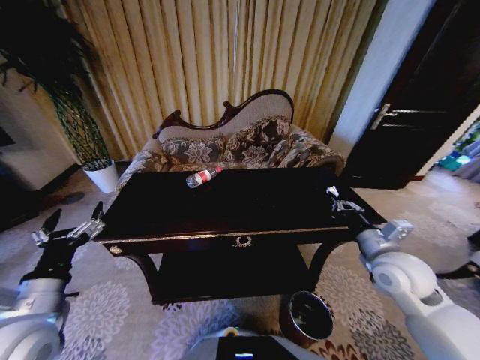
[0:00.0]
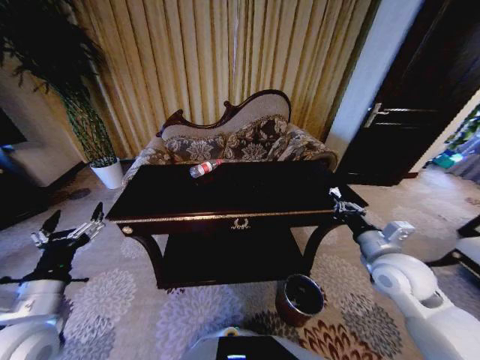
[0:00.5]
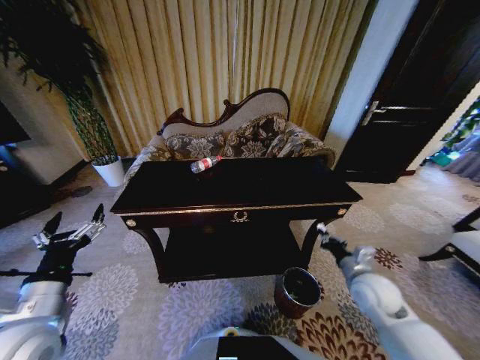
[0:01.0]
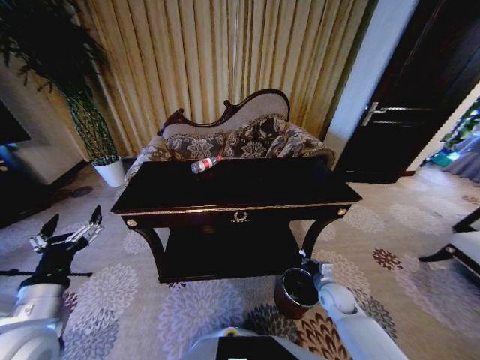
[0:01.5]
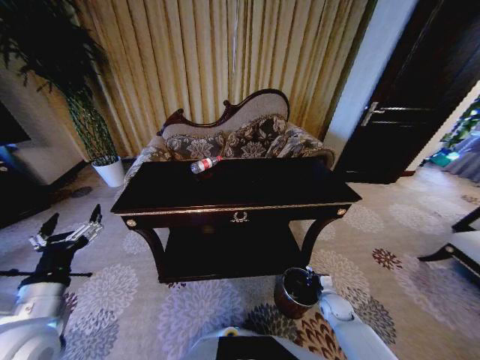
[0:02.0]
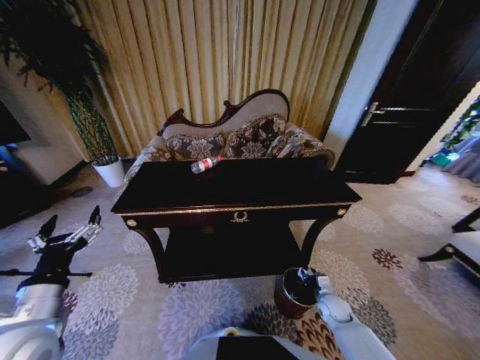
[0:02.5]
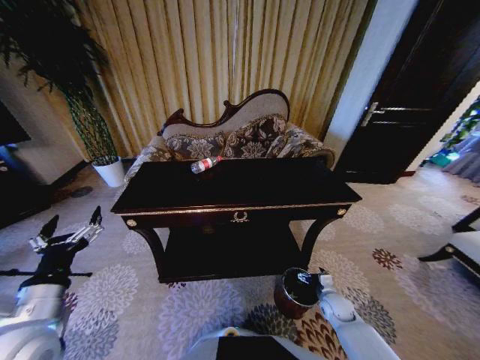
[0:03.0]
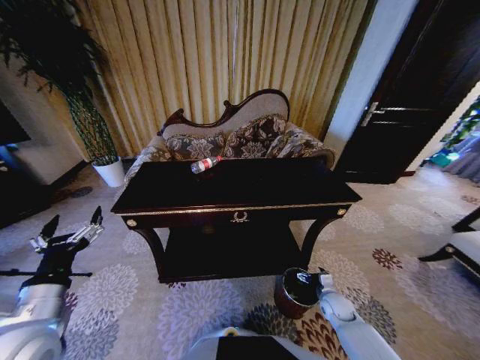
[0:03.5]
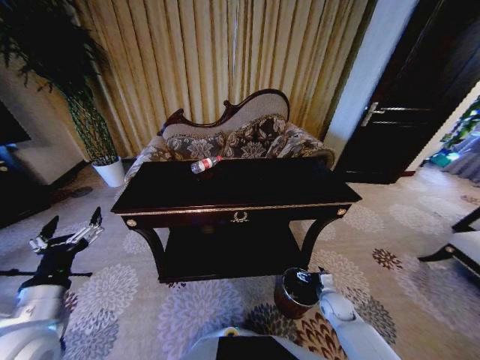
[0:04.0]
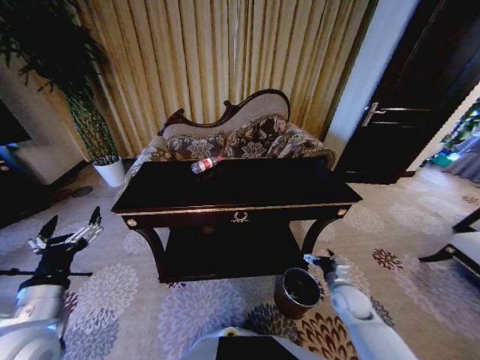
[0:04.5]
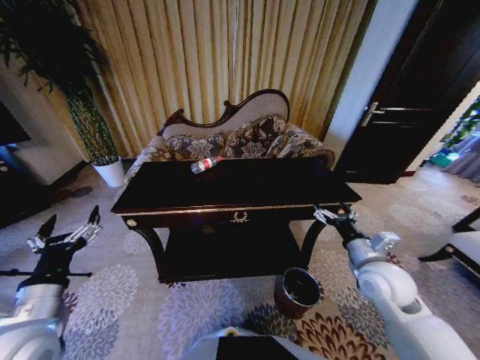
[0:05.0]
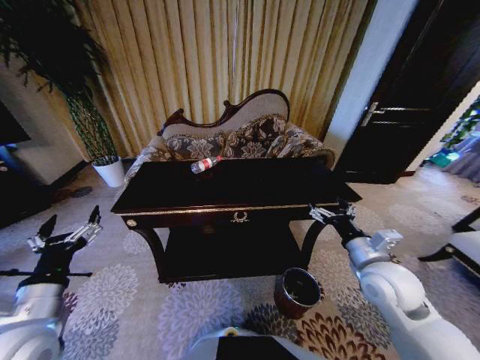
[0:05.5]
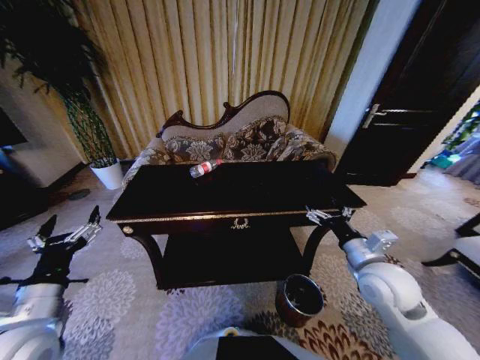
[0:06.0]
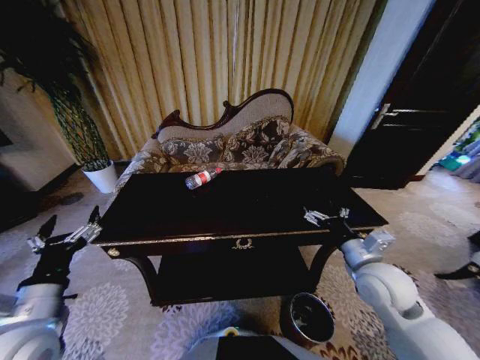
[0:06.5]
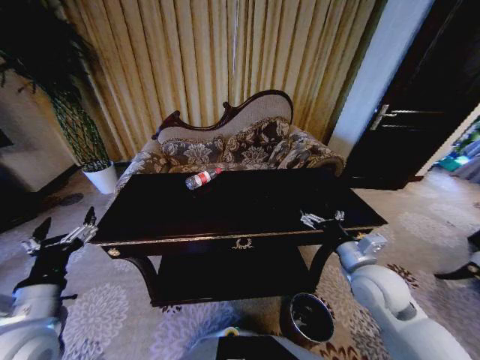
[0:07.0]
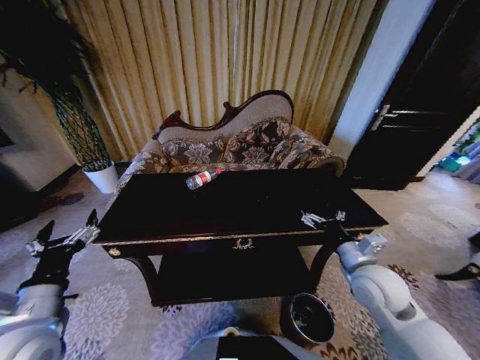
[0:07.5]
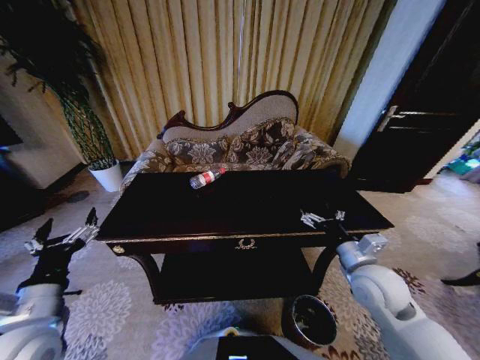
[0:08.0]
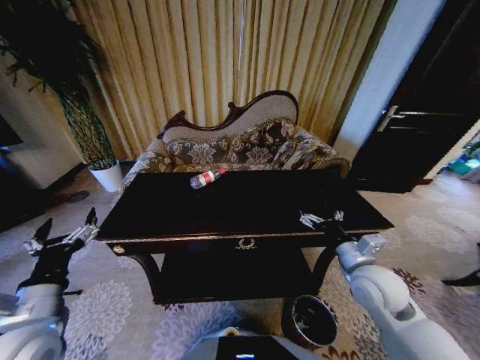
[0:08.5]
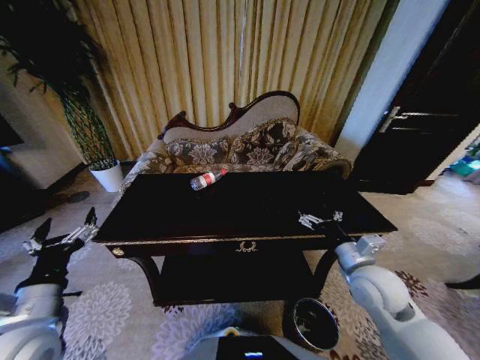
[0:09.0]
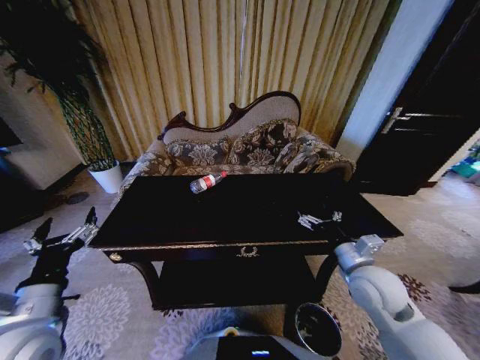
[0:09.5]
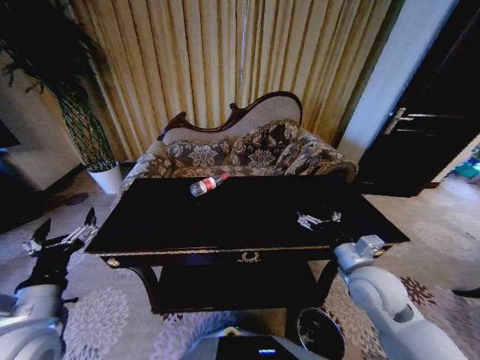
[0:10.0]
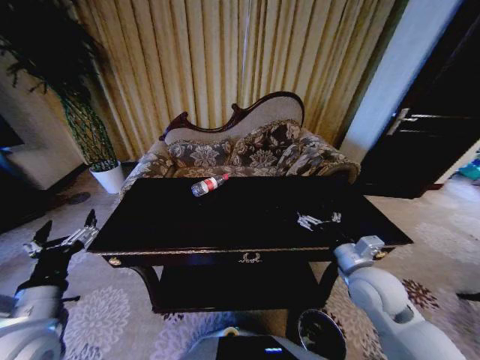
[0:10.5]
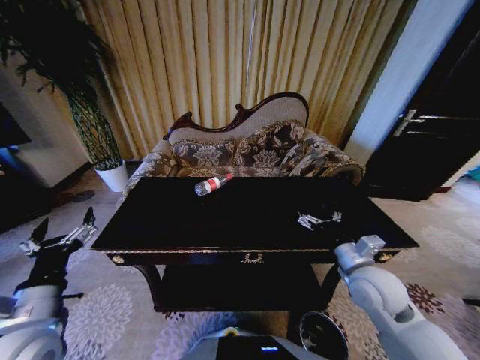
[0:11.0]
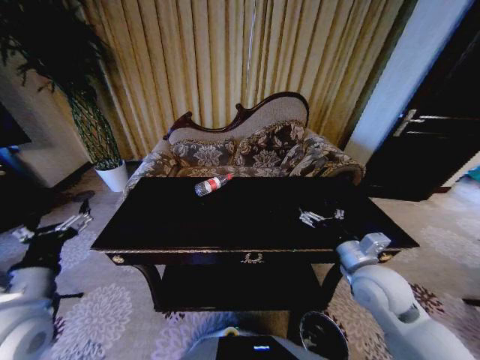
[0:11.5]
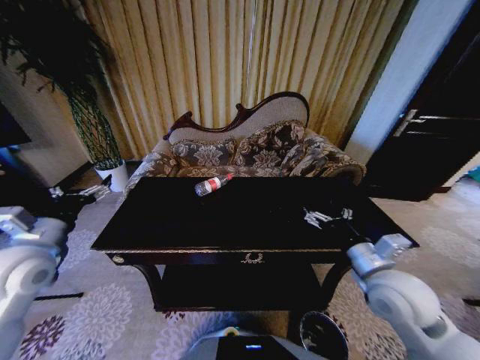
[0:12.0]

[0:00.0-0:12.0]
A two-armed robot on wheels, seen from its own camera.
Task of the whole recording: Move to the front of the table and place the trash on the table into the trash bin.
0:00.0 to 0:02.0: The right gripper is displaced downward by about 30 cm.
0:04.0 to 0:06.0: The right gripper heads upward, covering about 30 cm.
0:10.0 to 0:12.0: The right gripper moves roughly 5 cm. Meanwhile the left gripper heads forward, to the left and upward, covering some 15 cm.

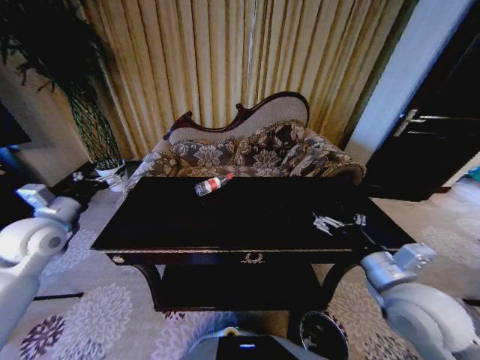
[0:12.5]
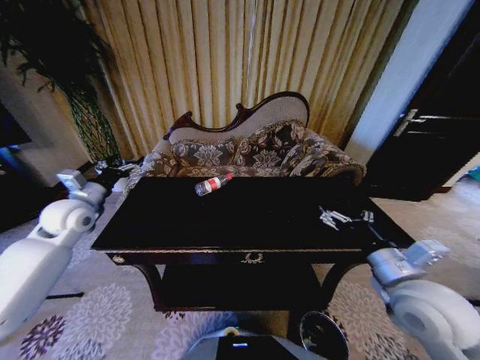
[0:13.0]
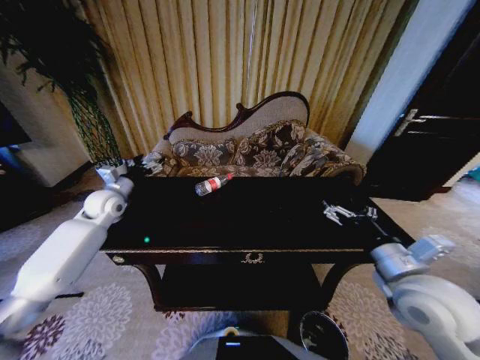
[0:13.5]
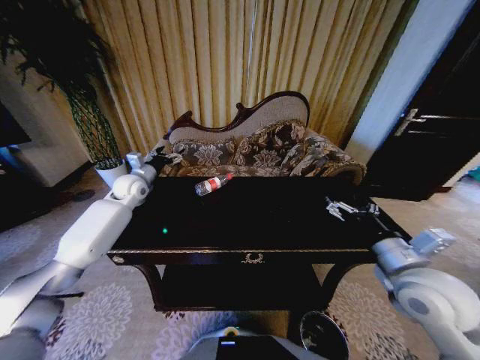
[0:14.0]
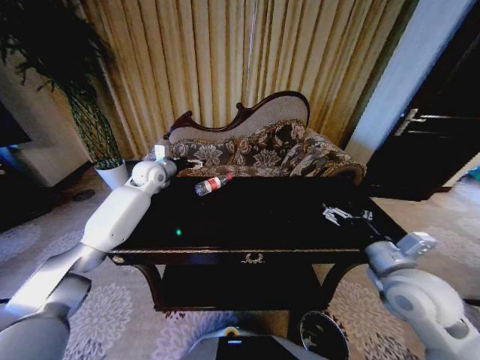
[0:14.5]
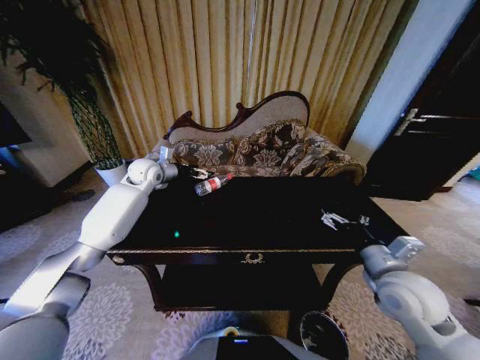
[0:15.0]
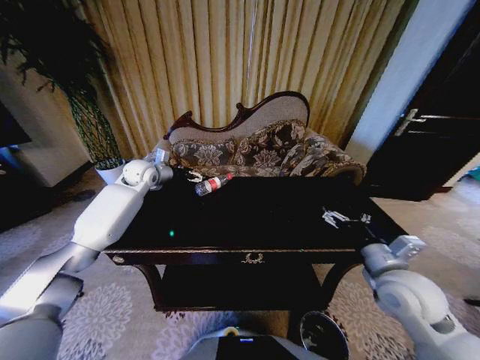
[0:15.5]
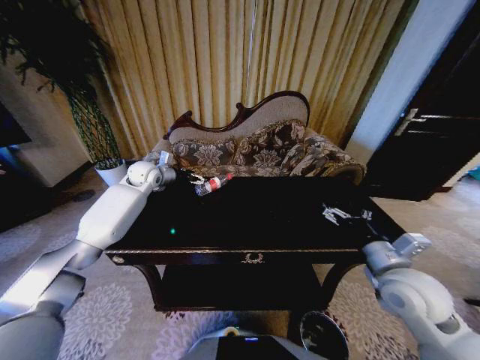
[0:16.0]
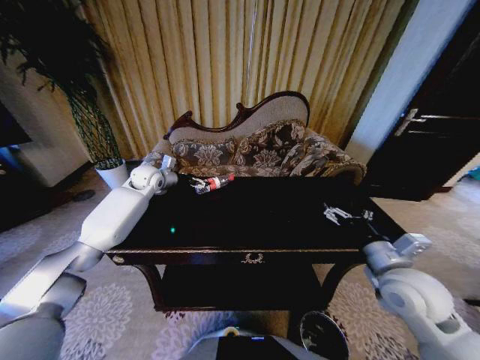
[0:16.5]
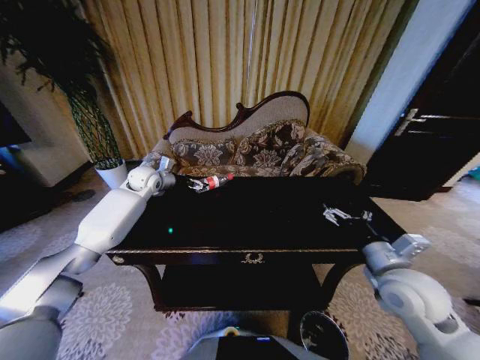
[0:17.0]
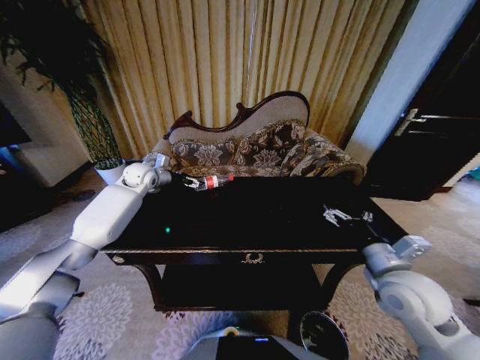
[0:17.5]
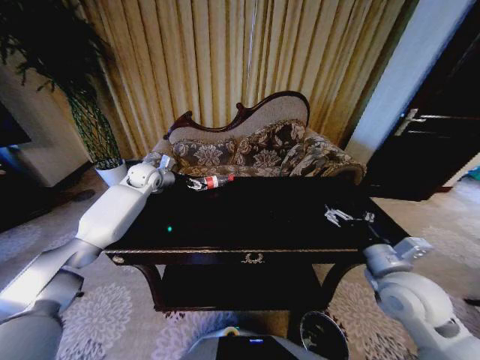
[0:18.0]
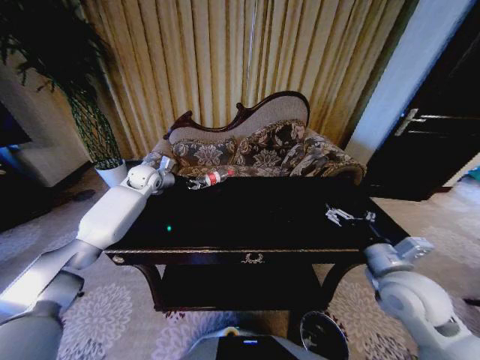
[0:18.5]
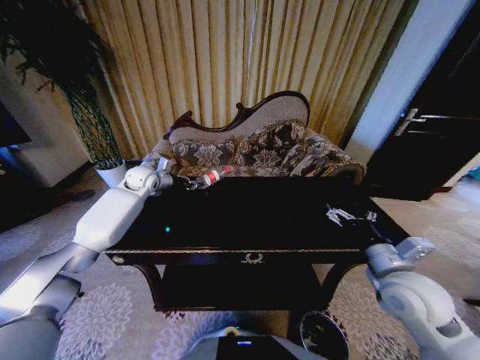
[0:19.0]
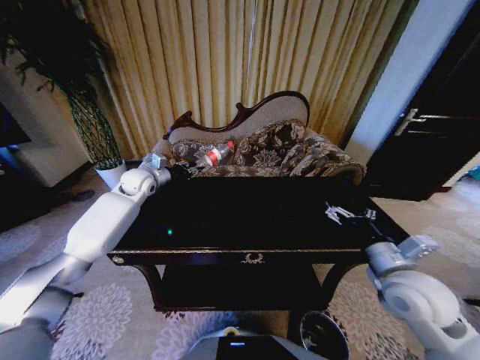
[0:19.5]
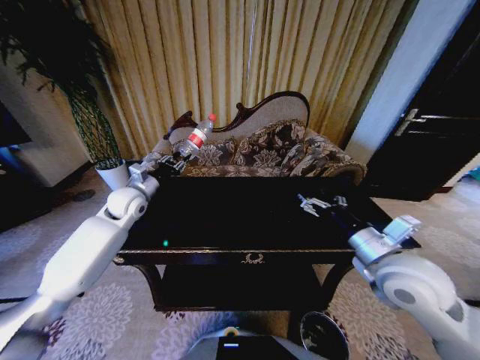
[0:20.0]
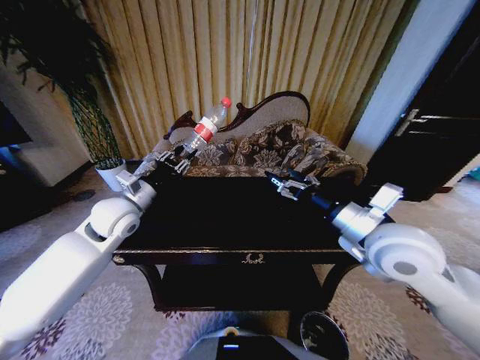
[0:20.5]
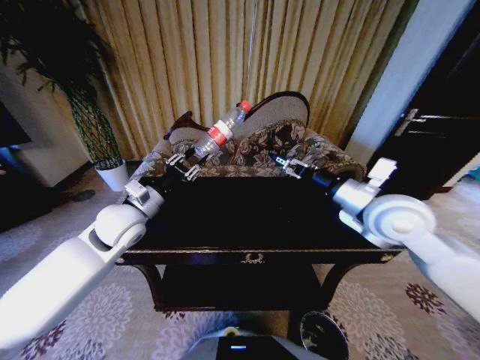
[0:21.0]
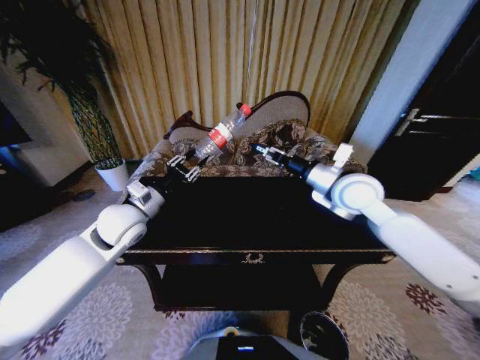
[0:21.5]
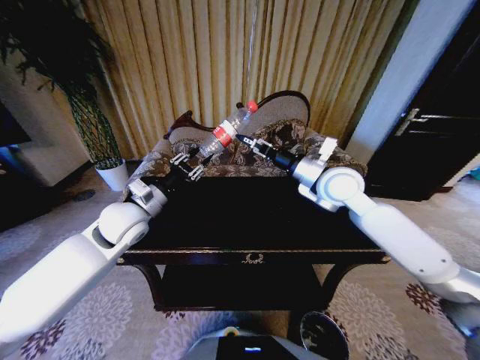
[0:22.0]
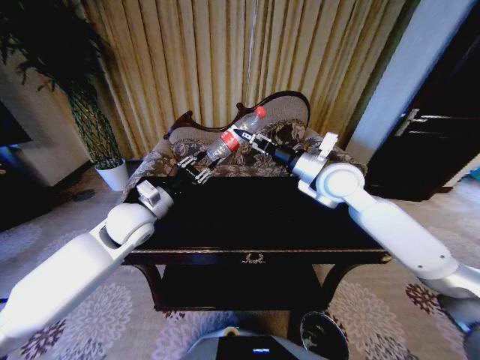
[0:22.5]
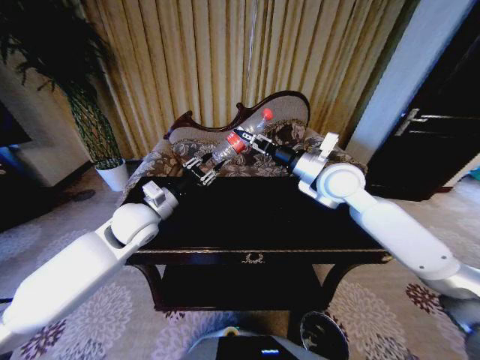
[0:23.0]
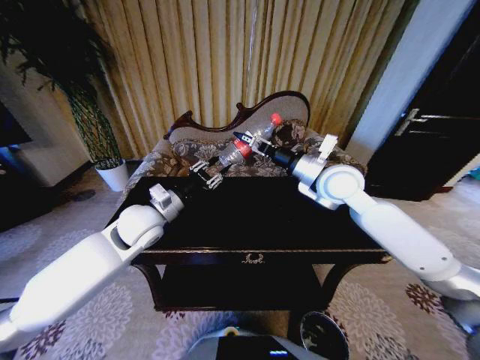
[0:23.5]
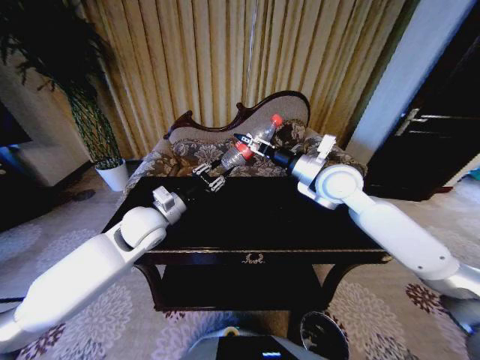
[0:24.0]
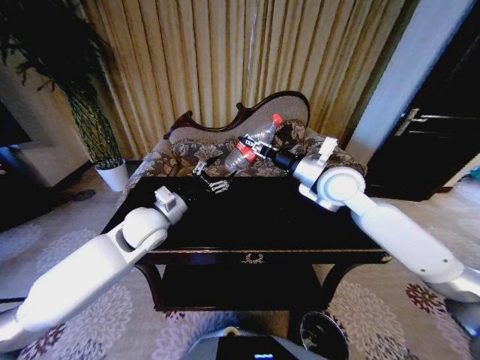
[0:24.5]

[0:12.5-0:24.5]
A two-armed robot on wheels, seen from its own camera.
Task of the whole recording: Move to the front of the table and place the trash on the table into the trash bin.
0:12.5 to 0:14.5: The left gripper heads forward and to the right, covering roughly 30 cm.
0:16.5 to 0:18.5: The left gripper closes its fingers.
0:18.5 to 0:20.5: The left gripper heads backward, covering approximately 20 cm, and closes. The right gripper heads upward and to the left, covering approximately 15 cm.
0:20.5 to 0:22.5: The right gripper moves forward, approximately 15 cm.
0:22.5 to 0:24.5: The right gripper closes its fingers. The left gripper opens its fingers.

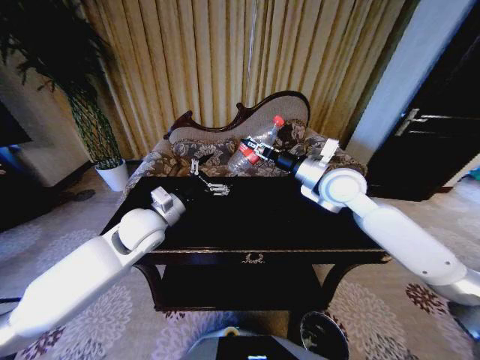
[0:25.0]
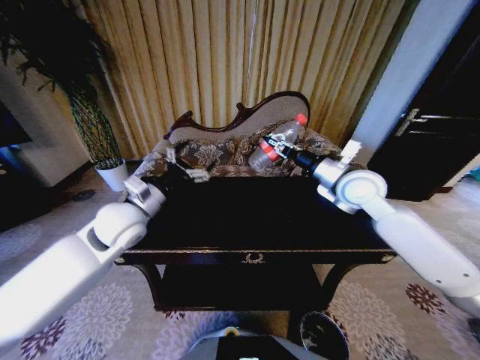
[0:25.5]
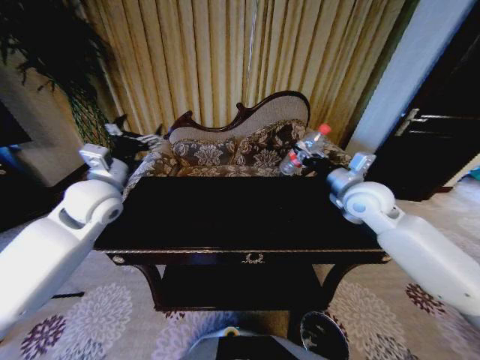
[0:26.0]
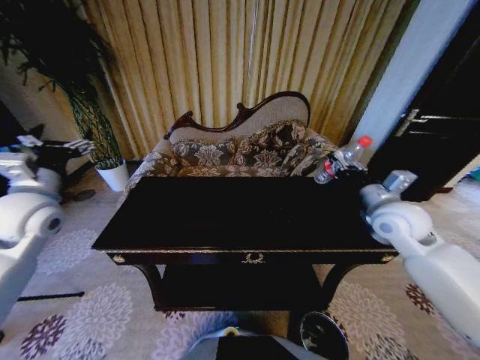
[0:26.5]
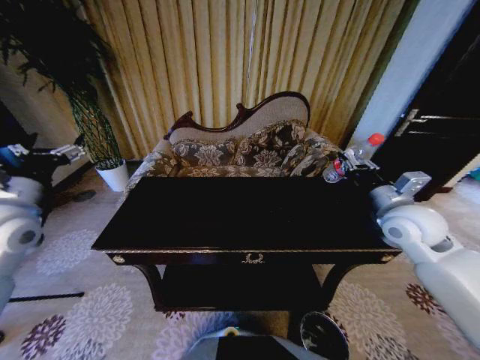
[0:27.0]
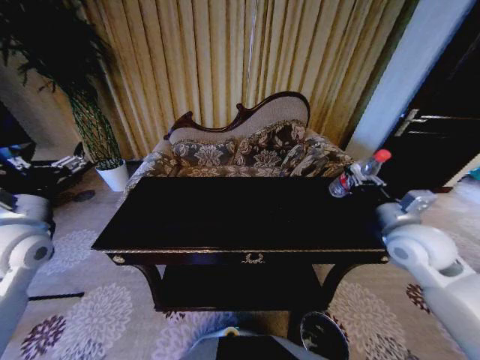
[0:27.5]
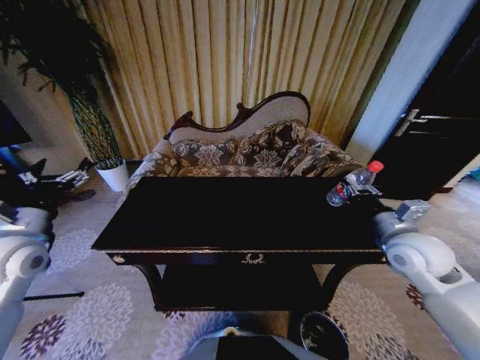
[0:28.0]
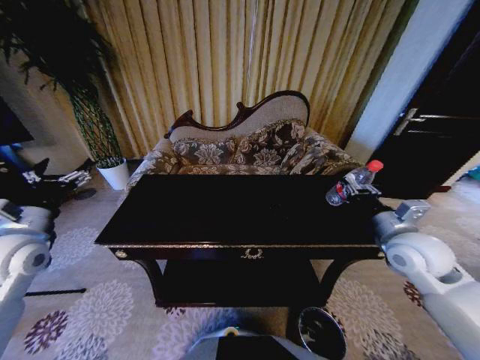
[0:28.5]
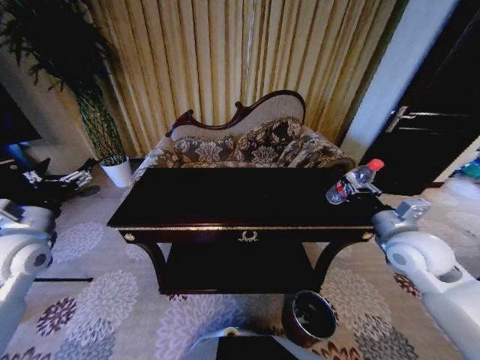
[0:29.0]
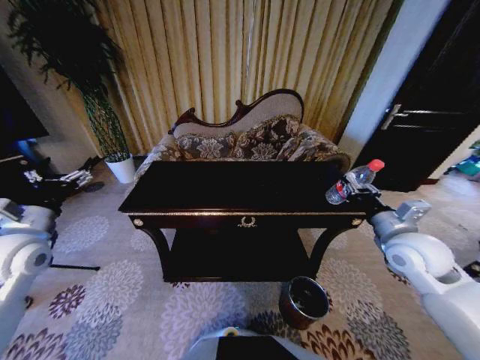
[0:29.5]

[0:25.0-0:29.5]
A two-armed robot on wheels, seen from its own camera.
Task of the whole recording: Move to the front of the table and place the trash on the table into the trash bin.
0:25.0 to 0:27.0: The left gripper travels to the left by some 20 cm; the right gripper moves to the right and backward, some 15 cm.
0:27.0 to 0:29.5: The left gripper moves downward, about 5 cm. Meanwhile the right gripper ends up approximately 5 cm from where it was.
